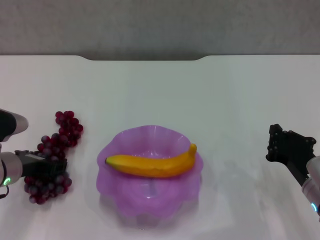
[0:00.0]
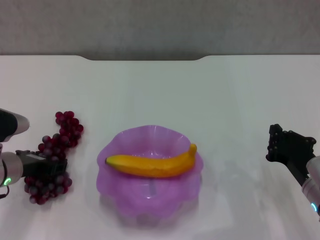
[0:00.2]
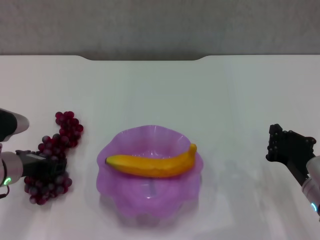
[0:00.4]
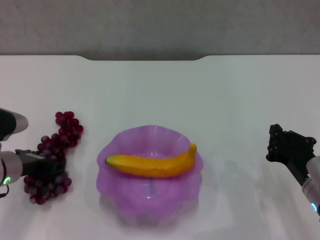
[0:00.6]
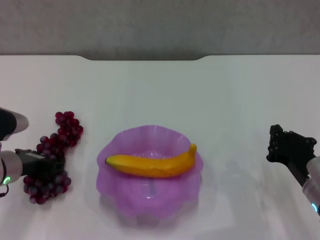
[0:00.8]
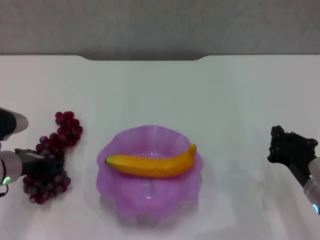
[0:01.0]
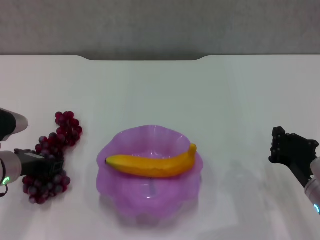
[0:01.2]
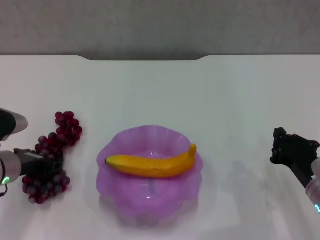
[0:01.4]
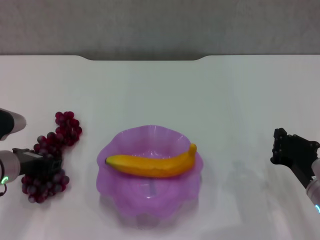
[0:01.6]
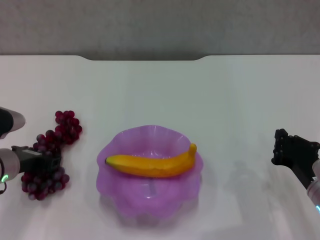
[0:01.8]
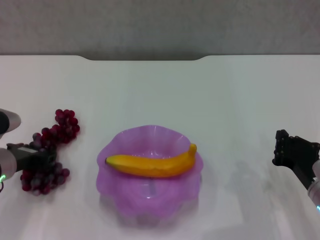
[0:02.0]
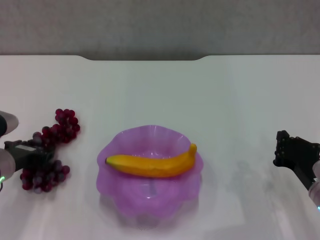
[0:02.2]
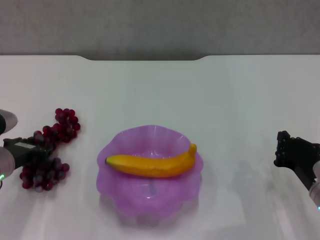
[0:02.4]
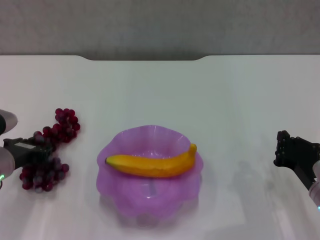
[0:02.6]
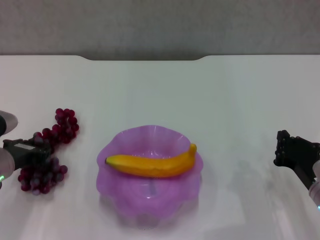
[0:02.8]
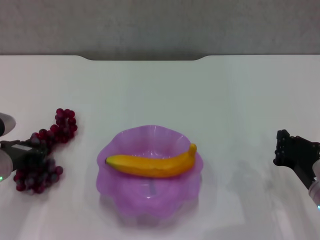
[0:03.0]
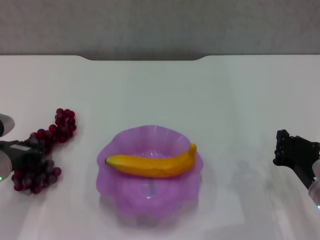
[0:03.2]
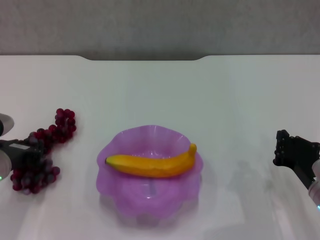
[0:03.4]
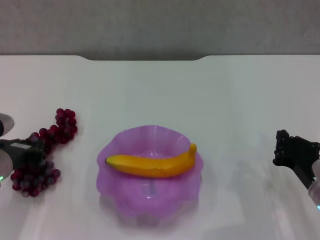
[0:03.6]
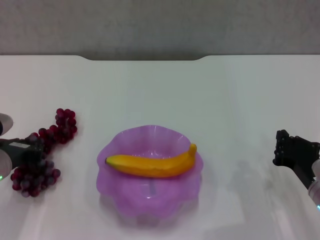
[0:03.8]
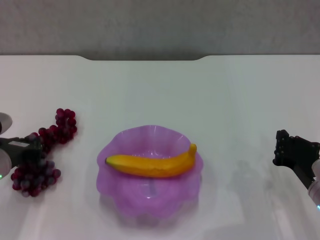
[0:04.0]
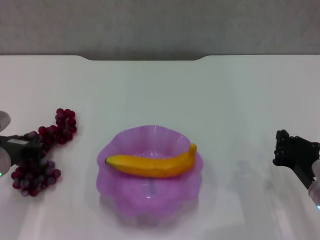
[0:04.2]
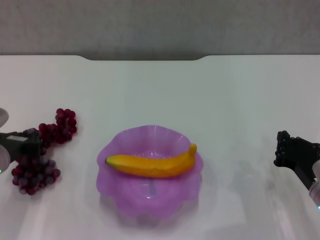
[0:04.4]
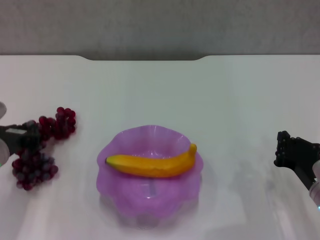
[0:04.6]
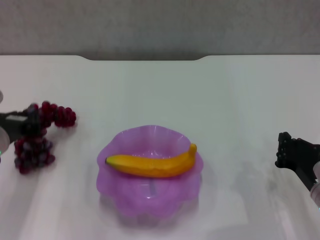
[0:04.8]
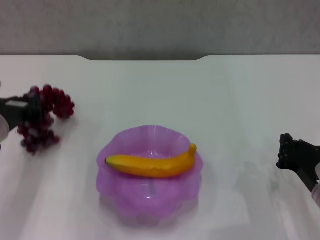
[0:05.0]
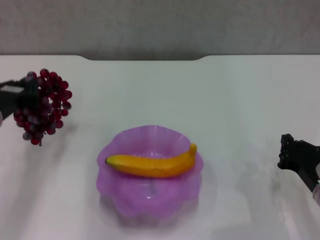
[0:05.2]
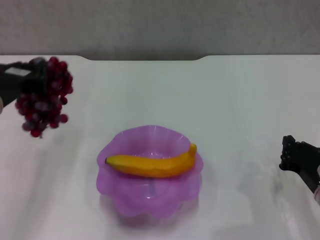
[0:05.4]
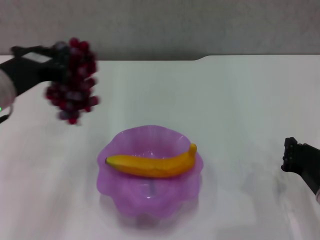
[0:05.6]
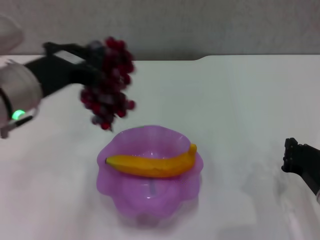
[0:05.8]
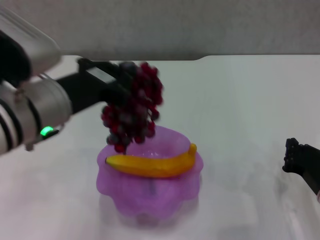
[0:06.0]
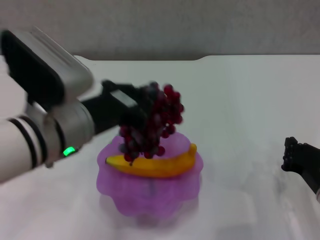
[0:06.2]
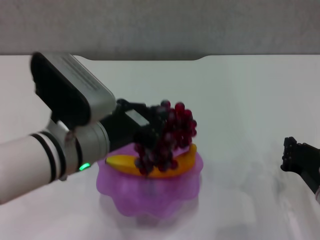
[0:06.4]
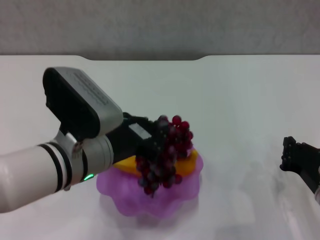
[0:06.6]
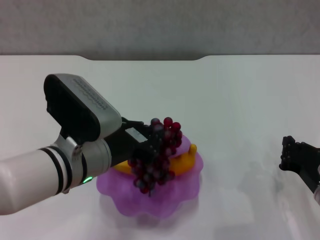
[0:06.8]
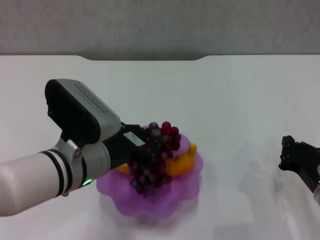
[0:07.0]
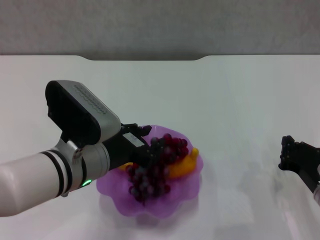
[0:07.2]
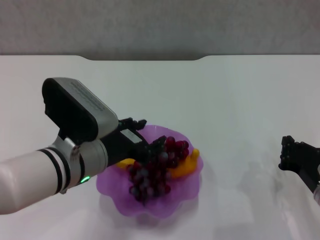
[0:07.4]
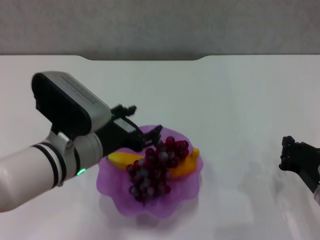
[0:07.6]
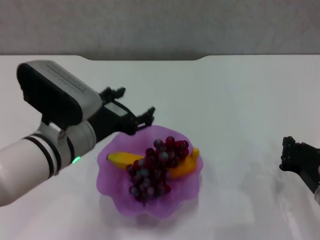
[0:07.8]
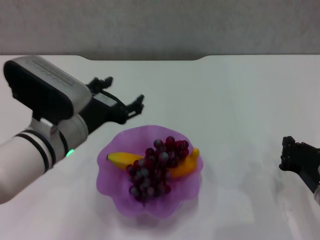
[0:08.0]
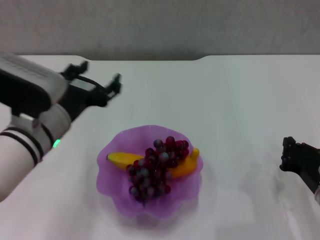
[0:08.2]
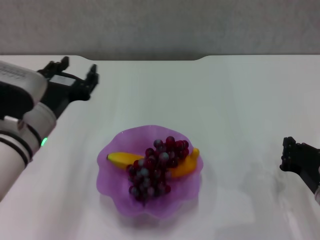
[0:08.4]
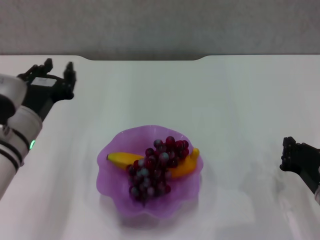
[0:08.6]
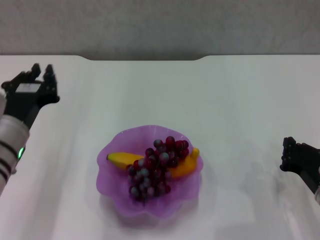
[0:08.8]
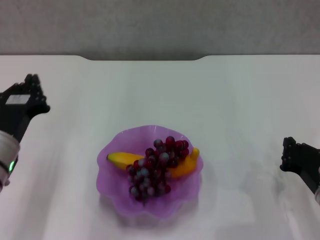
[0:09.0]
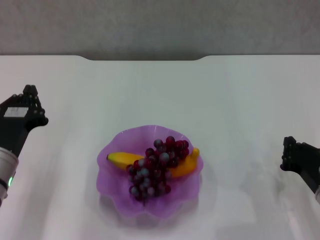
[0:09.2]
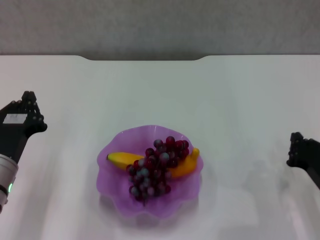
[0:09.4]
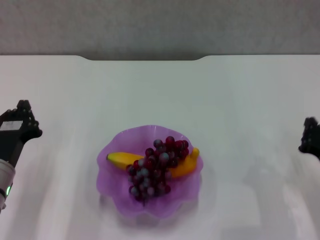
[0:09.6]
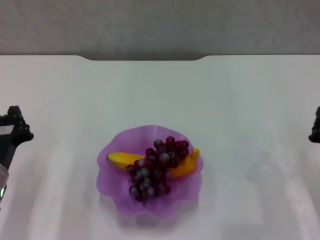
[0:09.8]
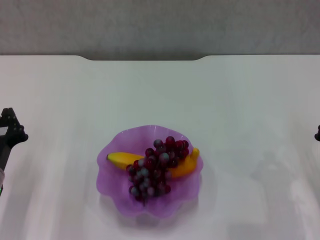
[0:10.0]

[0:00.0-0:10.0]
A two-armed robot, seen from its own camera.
Step, 0:01.4 to 0:07.6: Place the grape in the purple plate with left gripper.
0:00.0 to 0:01.4: Neither gripper changes place.
0:01.4 to 0:04.2: The grippers stay close to where they were, moving slightly.
0:04.2 to 0:05.8: The left gripper shifts about 20 cm upward and to the right.
0:05.8 to 0:07.2: The left gripper shifts roughly 10 cm downward and to the right.
0:07.2 to 0:08.6: The left gripper goes approximately 5 cm to the left, and opens its fingers.
0:08.6 to 0:10.0: The left gripper heads downward and to the left, covering about 10 cm, and closes.

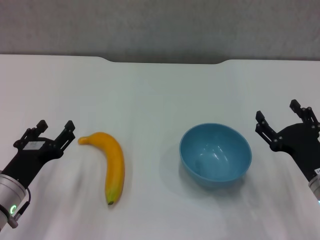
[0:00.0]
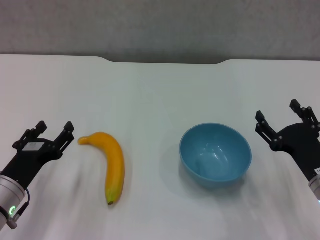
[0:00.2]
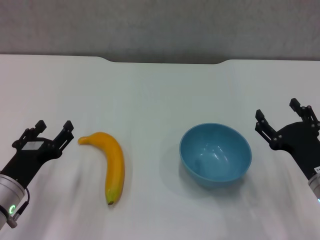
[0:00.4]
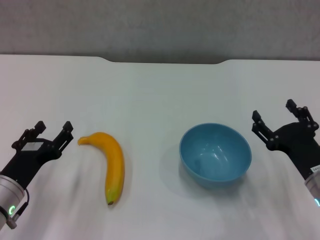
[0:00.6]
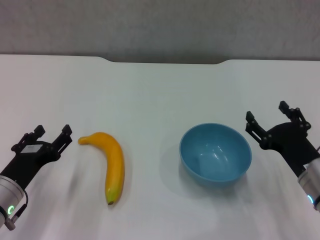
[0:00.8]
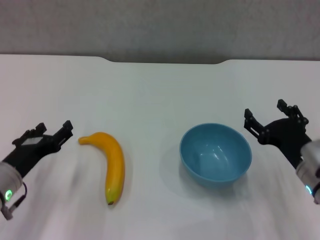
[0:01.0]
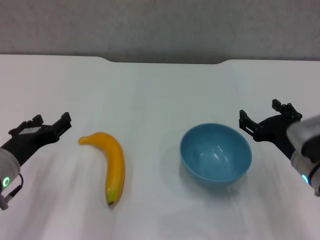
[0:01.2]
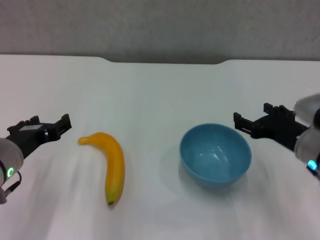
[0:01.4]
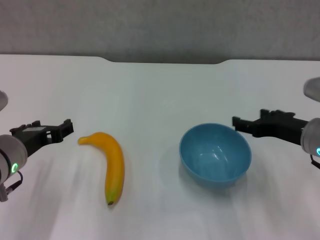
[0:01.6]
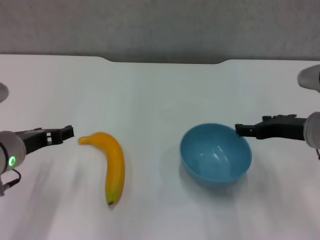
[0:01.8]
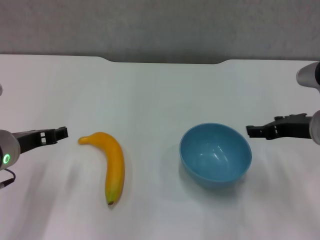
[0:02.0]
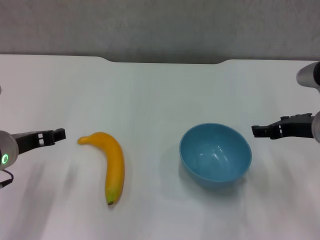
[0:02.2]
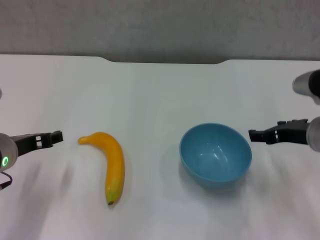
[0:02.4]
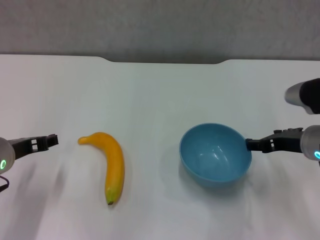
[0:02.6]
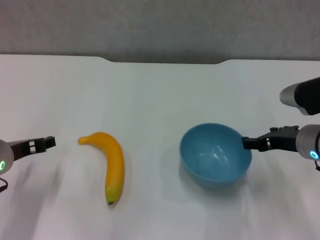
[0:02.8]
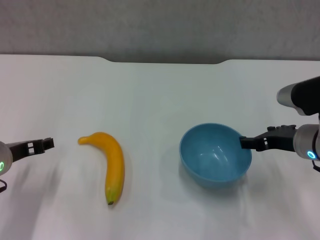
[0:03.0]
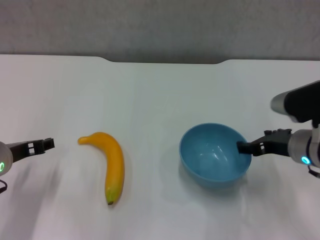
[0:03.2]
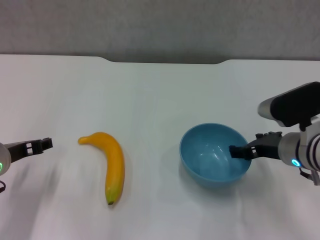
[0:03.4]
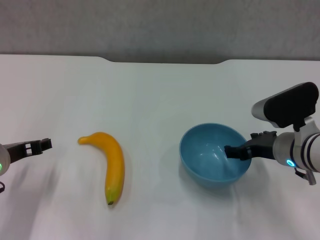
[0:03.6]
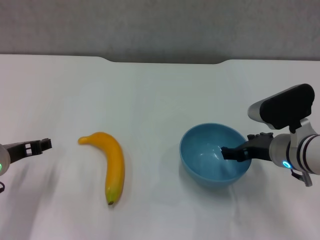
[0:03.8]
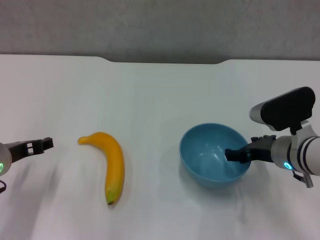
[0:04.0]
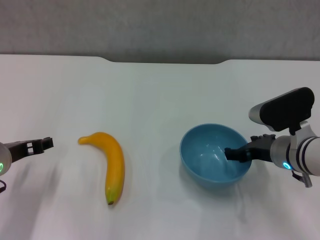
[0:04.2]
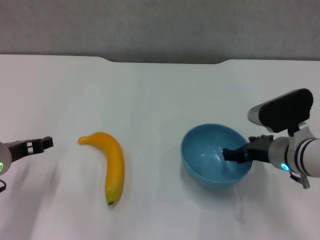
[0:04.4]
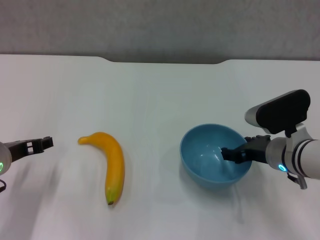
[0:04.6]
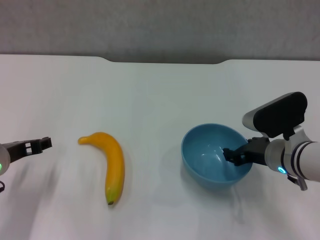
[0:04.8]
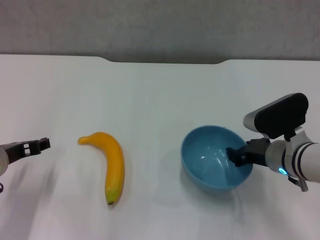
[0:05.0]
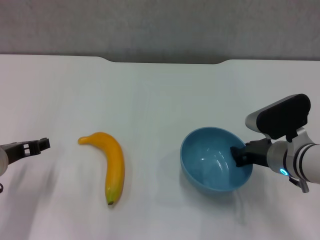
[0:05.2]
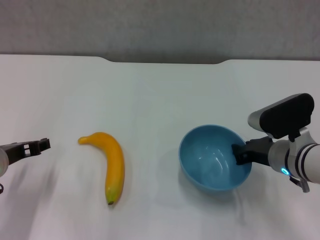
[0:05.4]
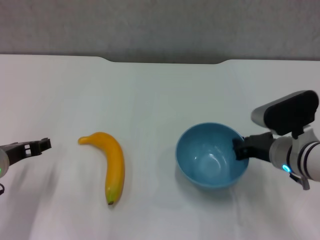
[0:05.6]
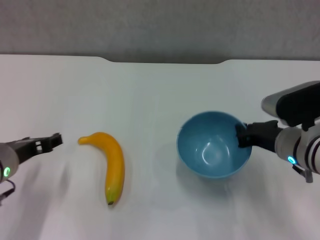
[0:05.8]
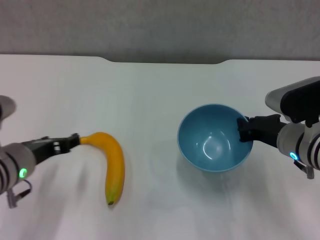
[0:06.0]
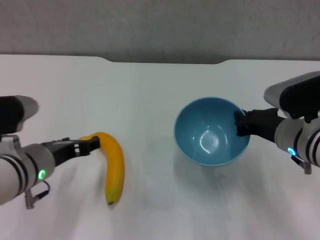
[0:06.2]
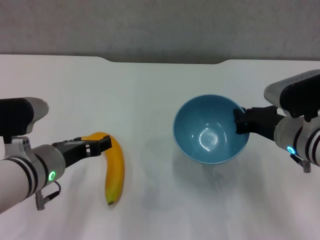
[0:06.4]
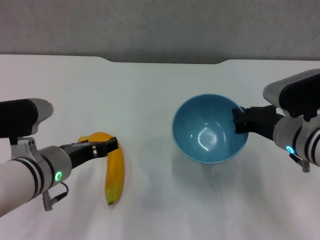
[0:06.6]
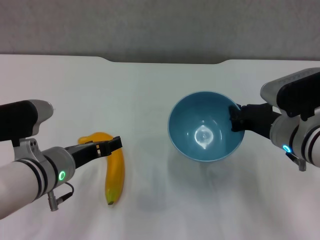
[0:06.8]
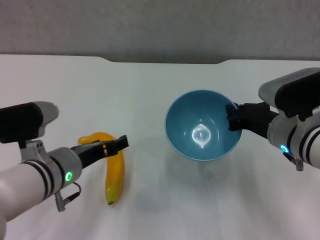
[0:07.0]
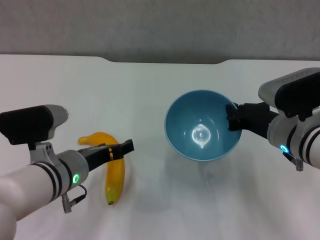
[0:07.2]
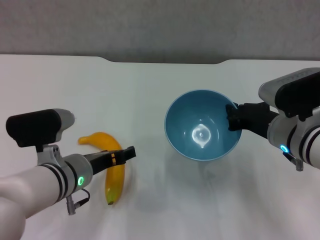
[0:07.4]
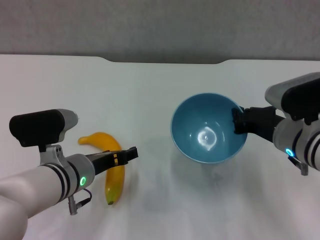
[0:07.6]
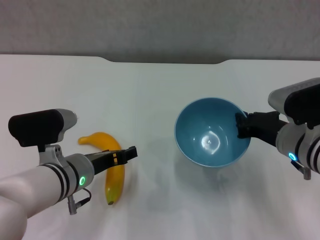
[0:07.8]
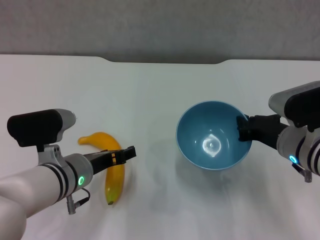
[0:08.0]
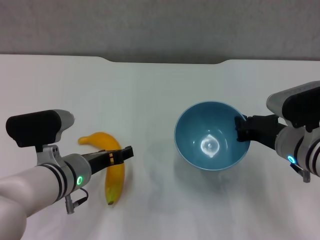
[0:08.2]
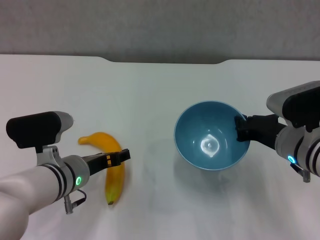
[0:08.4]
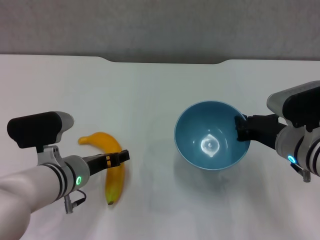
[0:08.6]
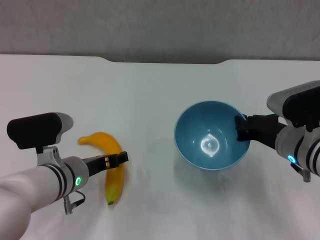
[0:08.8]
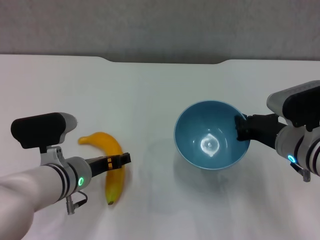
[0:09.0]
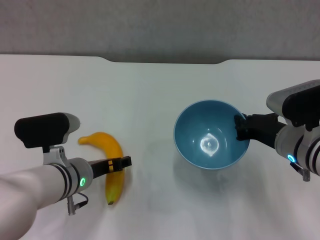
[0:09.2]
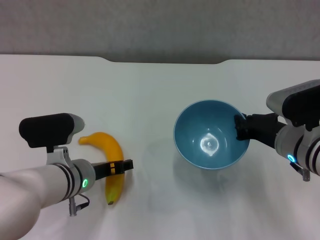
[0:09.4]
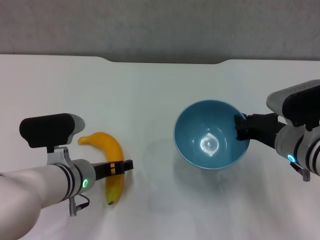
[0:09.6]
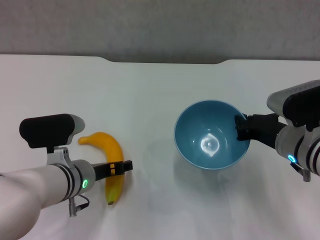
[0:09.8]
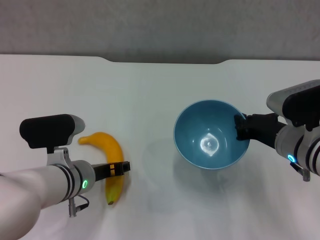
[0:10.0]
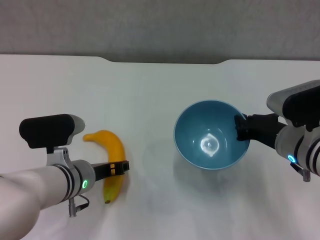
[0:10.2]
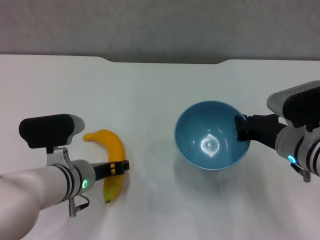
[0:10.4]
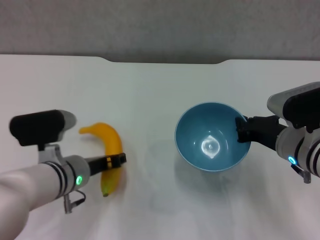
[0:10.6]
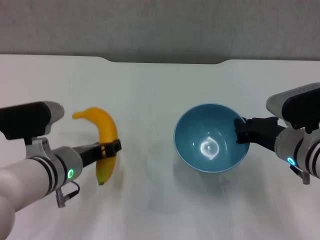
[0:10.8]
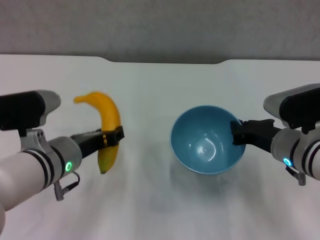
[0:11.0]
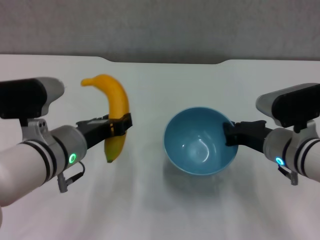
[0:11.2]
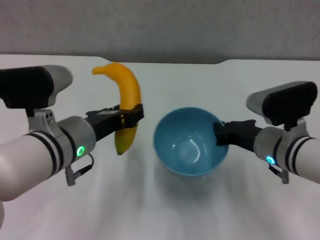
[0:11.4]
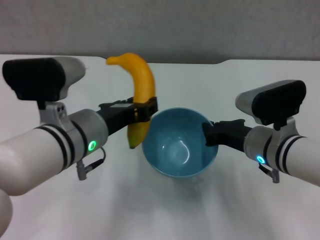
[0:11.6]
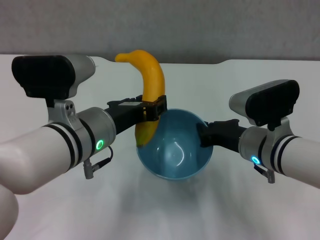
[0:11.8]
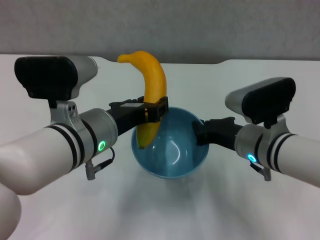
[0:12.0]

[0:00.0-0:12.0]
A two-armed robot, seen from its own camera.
Step, 0:00.0 to 0:05.2: Grasp the blue bowl with right gripper.
Step, 0:05.4 to 0:06.4: Lift the blue bowl with right gripper.
Step, 0:06.6 to 0:10.2: Grasp the banana with left gripper.
0:00.0 to 0:01.6: The left gripper is displaced upward by approximately 10 cm, while the right gripper shifts about 10 cm upward and forward.
0:01.6 to 0:03.0: The grippers make only small movements.
0:03.0 to 0:04.4: There are only small adjustments of the grippers.
0:04.4 to 0:06.0: The right gripper closes.
0:06.0 to 0:07.6: The left gripper goes about 5 cm to the right.
0:07.6 to 0:09.0: There are only small adjustments of the grippers.
0:09.0 to 0:10.4: The left gripper closes.
0:10.4 to 0:12.0: The right gripper heads to the left, covering approximately 5 cm. The left gripper is displaced upward by about 10 cm.
